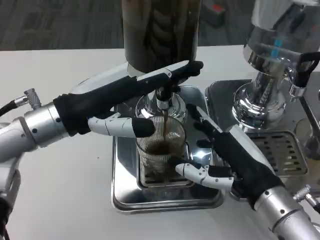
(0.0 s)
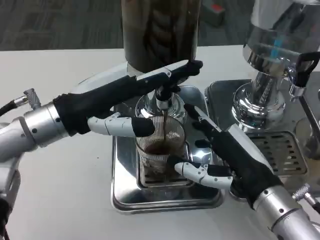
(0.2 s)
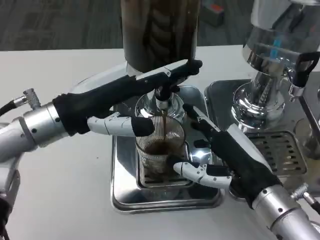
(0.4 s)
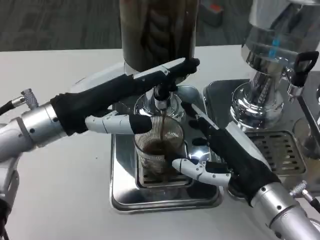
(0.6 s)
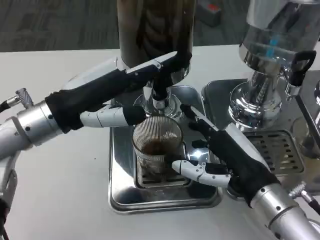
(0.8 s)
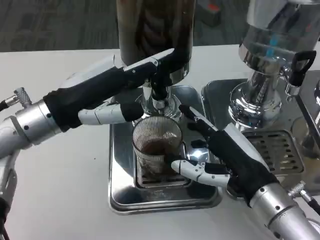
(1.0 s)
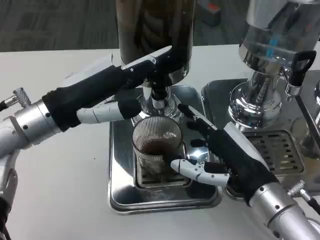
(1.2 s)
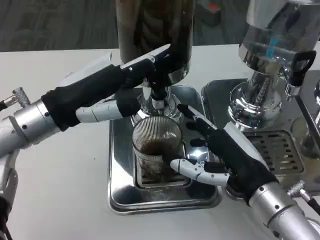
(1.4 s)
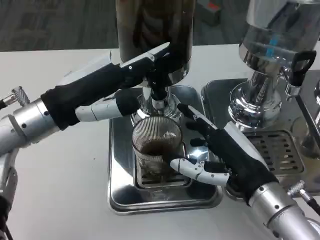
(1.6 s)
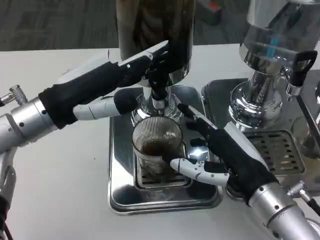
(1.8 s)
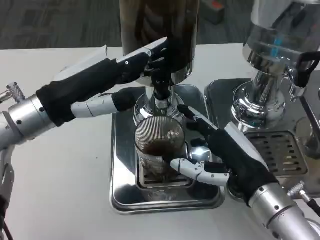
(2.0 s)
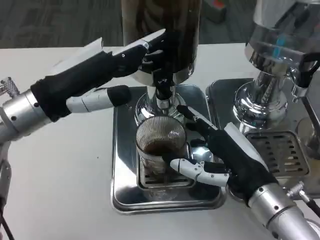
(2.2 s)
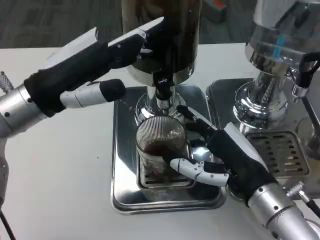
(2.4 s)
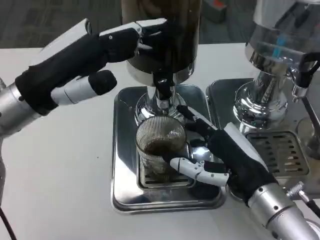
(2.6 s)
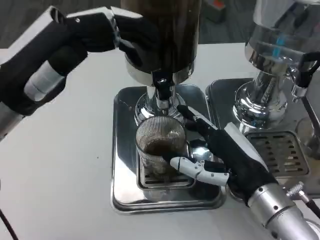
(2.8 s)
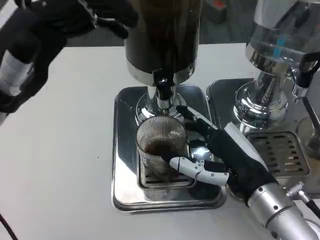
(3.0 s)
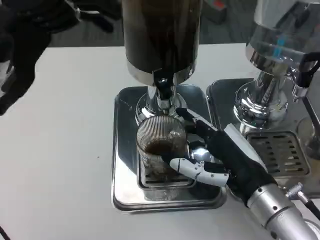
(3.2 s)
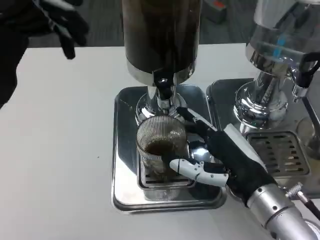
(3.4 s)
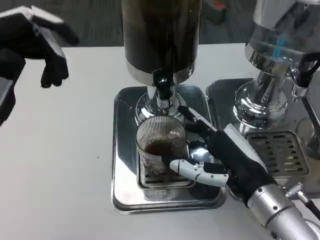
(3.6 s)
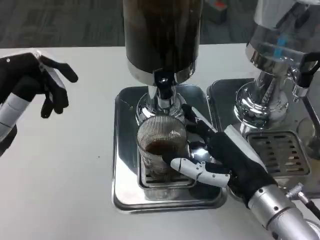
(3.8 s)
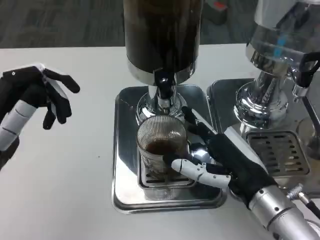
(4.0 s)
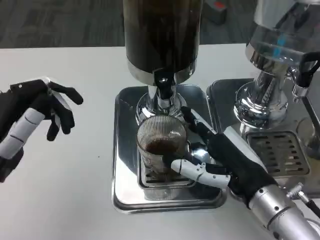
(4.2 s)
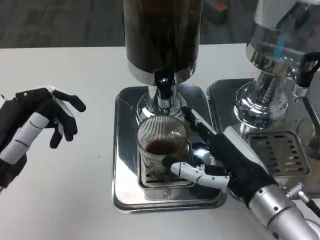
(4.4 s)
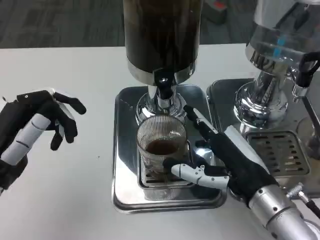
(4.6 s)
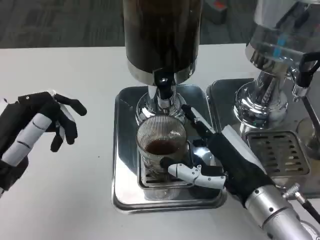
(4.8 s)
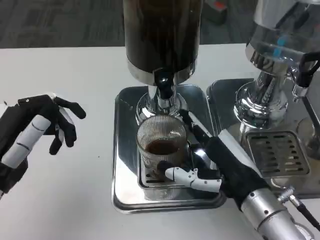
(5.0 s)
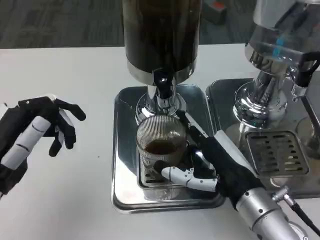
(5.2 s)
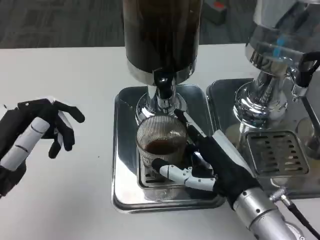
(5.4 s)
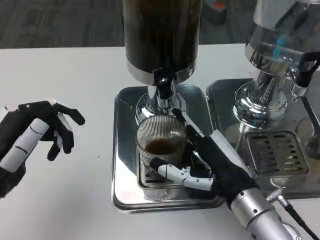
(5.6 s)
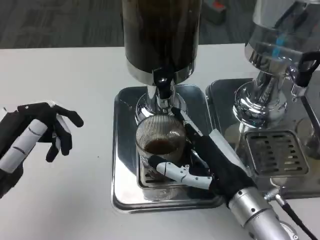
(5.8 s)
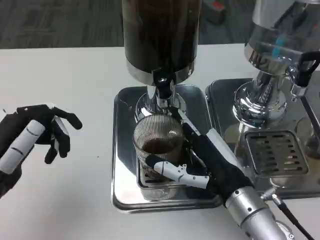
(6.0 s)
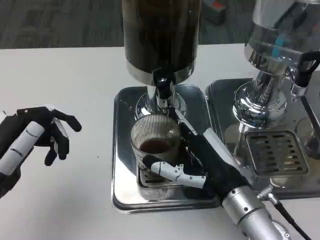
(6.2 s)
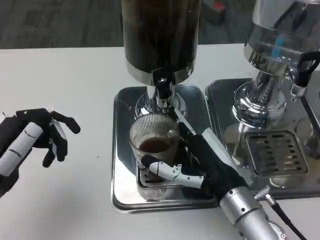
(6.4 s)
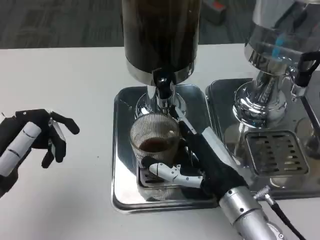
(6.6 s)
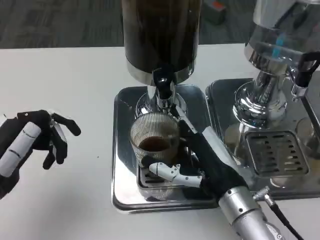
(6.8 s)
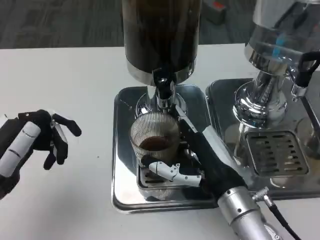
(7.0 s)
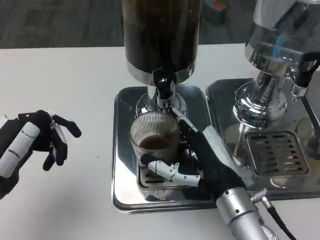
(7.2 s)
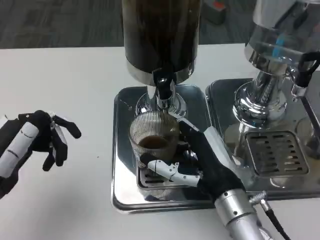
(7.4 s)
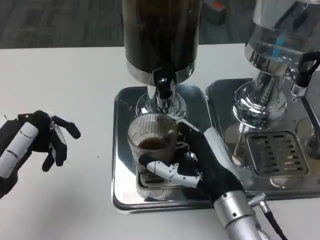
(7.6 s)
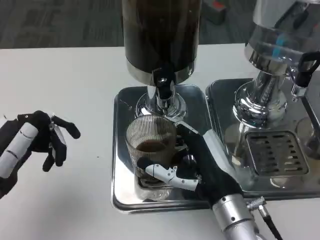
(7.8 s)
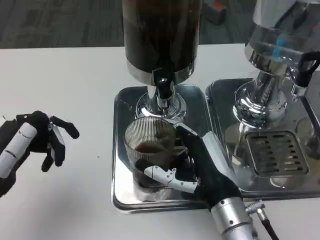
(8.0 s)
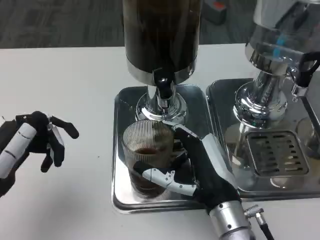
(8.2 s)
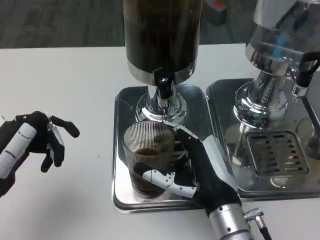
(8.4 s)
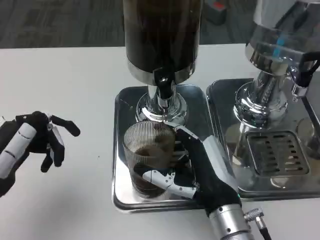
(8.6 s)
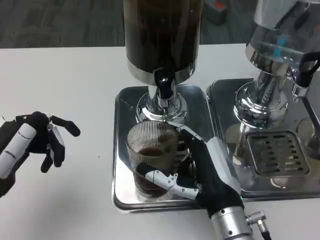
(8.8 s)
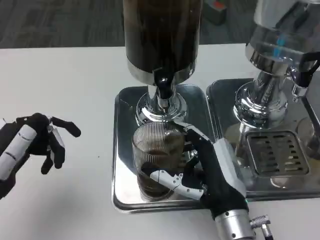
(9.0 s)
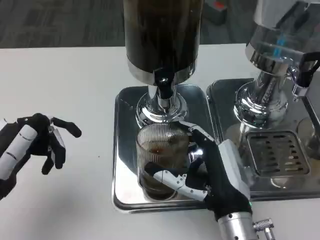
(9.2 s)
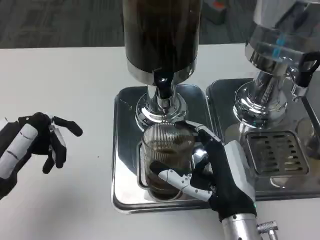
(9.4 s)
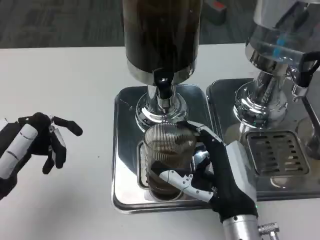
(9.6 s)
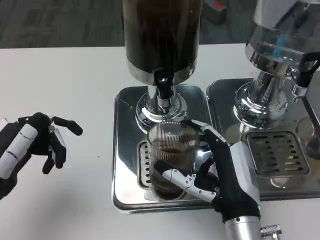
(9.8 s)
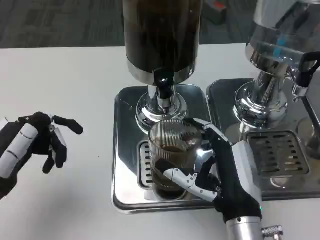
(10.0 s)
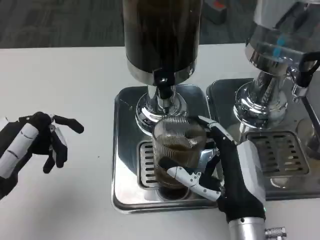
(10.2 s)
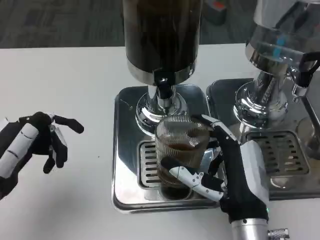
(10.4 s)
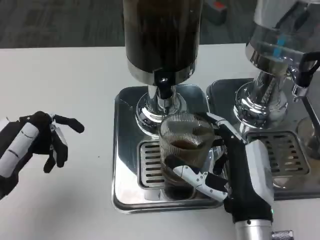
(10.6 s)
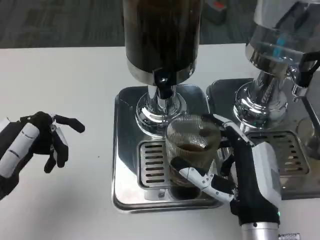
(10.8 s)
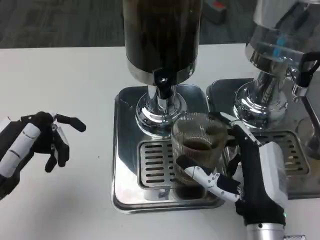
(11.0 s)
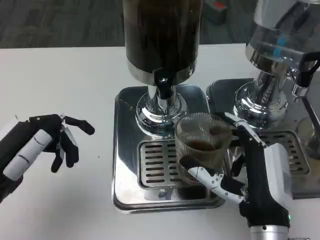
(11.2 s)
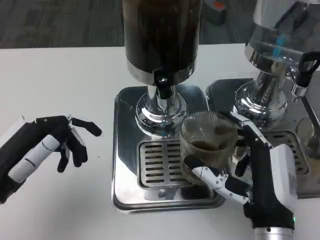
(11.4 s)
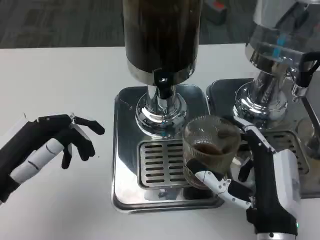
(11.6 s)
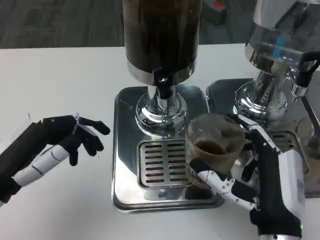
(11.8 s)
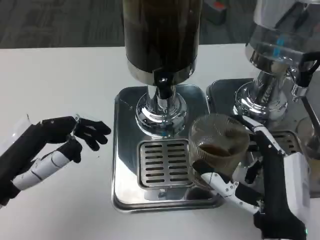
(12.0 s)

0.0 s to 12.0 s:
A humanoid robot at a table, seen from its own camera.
Task of the whole recording: Grasp the cup under the faucet to collect the drink, then remove the cup.
1.6 to 3.0 s: The left hand moves about 5 cm.
3.0 to 4.4 s: The left hand moves downward and backward, about 10 cm.
6.0 to 9.0 s: The hands make only small movements.
9.0 to 10.4 s: The hands stay close to where they were, moving slightly.

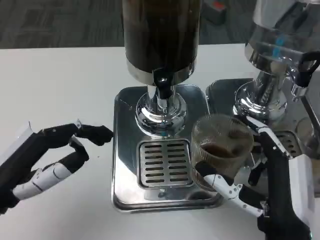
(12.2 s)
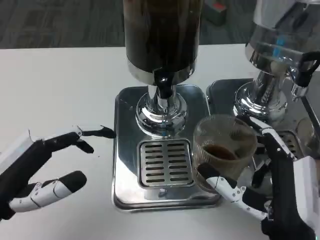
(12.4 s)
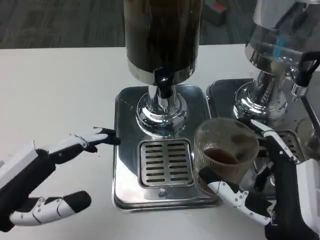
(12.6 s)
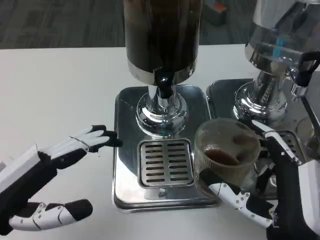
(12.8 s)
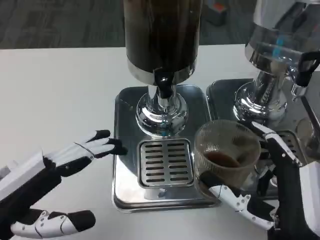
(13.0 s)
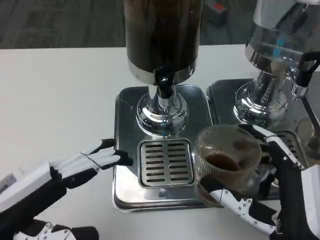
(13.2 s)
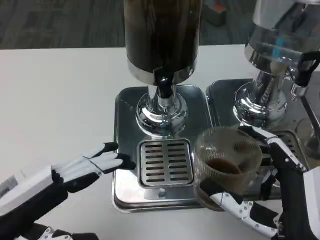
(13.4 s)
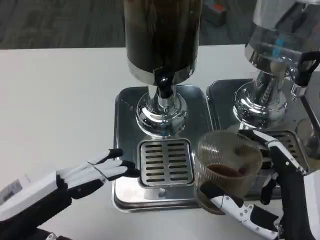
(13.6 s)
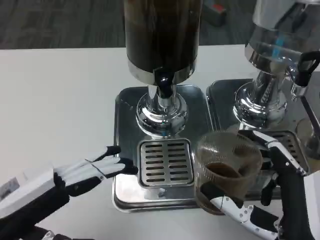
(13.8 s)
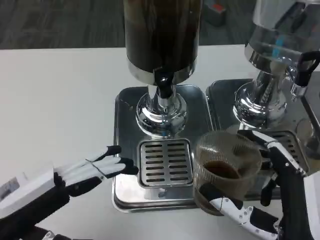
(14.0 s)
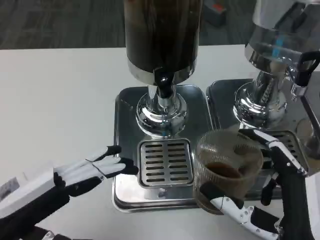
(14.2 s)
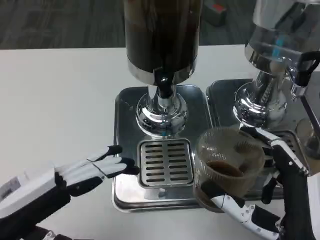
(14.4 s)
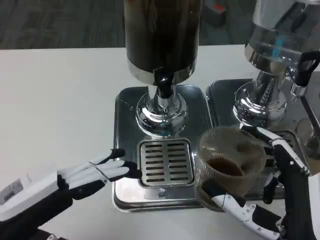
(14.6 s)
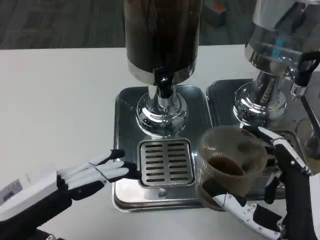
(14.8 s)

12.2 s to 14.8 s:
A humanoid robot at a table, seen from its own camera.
Task of the whole recording: Grasp the cup under the faucet to collect the drink, then remove the cup.
13.4 to 14.8 s: Both hands stay put.

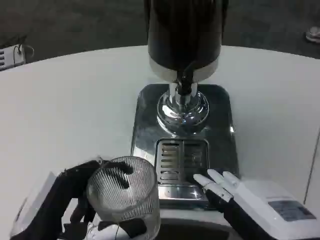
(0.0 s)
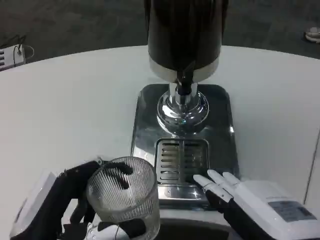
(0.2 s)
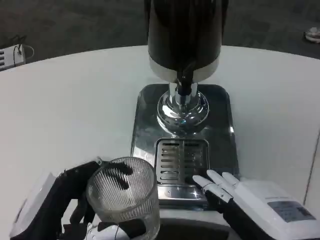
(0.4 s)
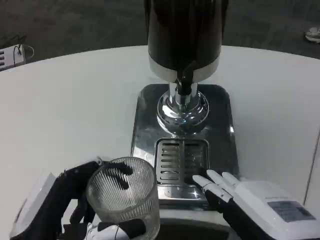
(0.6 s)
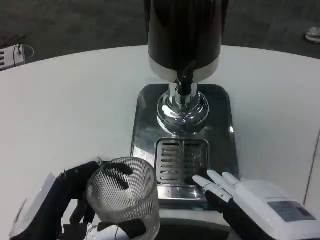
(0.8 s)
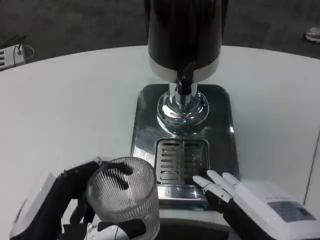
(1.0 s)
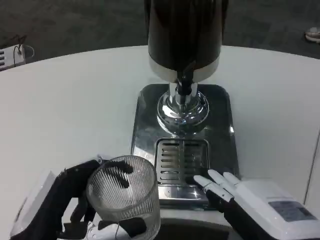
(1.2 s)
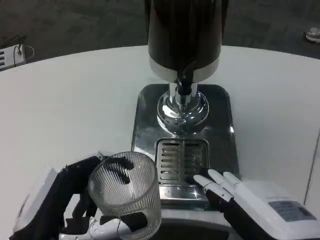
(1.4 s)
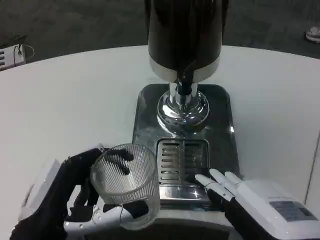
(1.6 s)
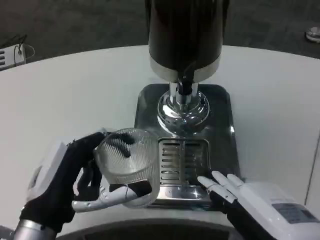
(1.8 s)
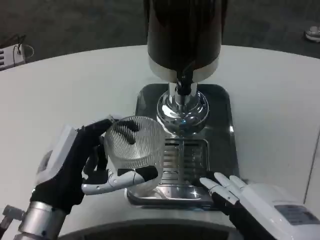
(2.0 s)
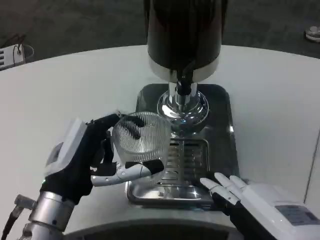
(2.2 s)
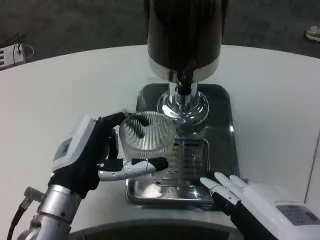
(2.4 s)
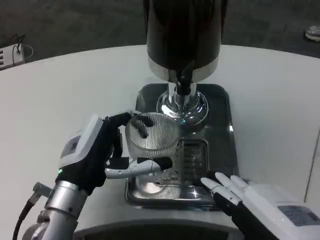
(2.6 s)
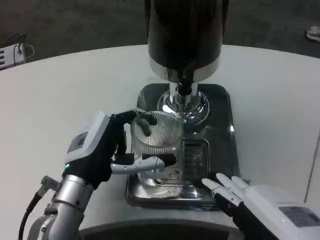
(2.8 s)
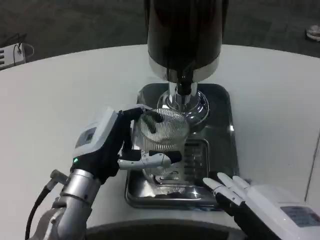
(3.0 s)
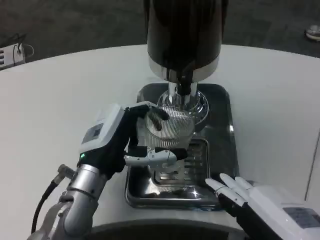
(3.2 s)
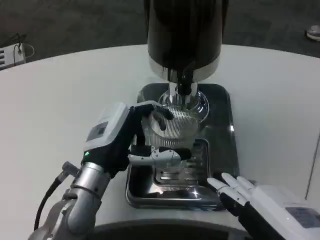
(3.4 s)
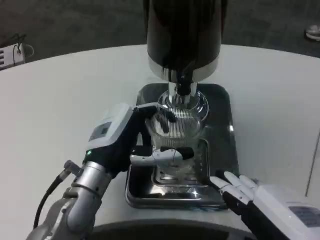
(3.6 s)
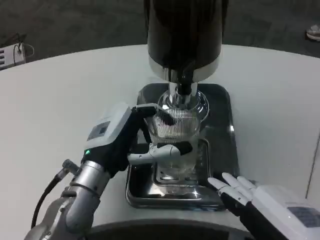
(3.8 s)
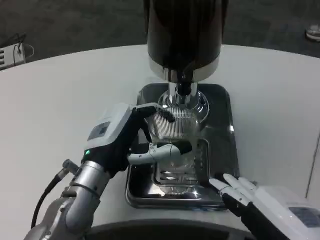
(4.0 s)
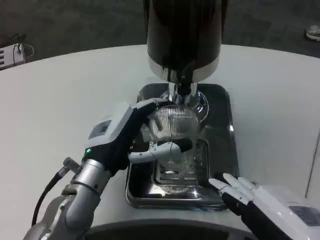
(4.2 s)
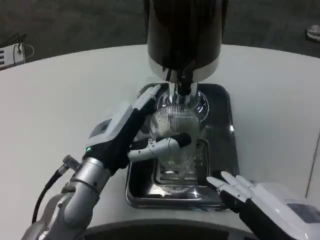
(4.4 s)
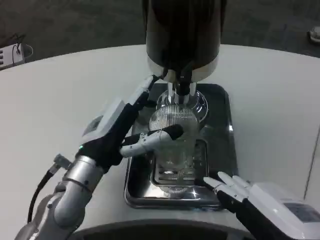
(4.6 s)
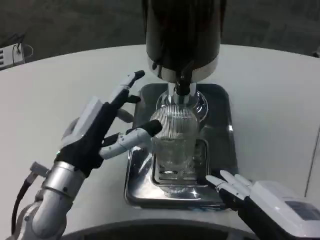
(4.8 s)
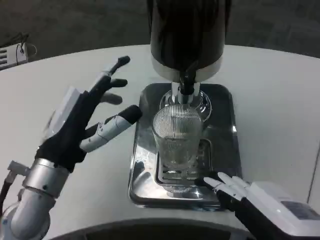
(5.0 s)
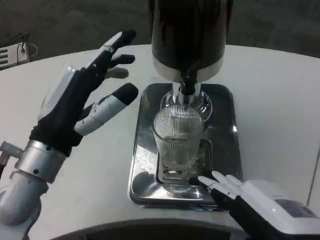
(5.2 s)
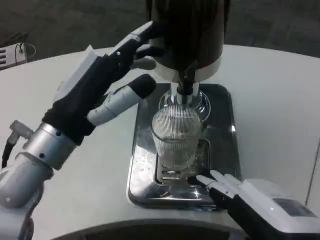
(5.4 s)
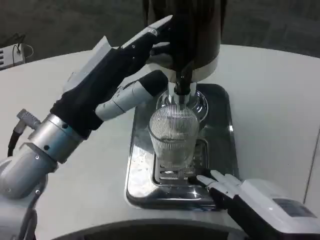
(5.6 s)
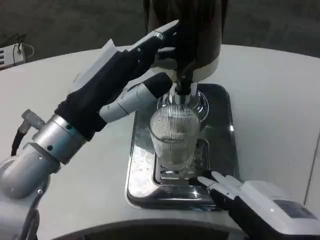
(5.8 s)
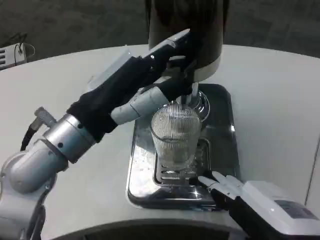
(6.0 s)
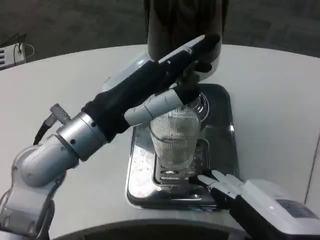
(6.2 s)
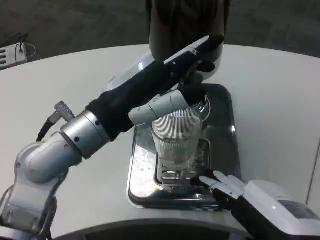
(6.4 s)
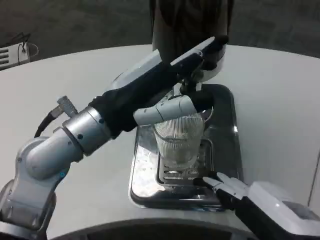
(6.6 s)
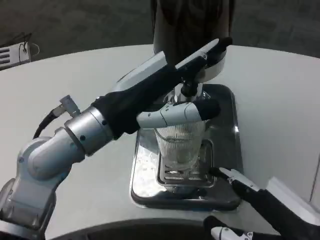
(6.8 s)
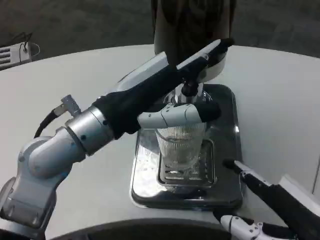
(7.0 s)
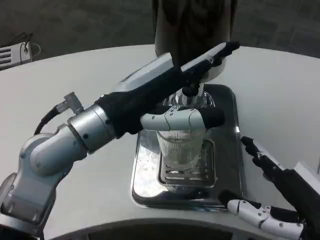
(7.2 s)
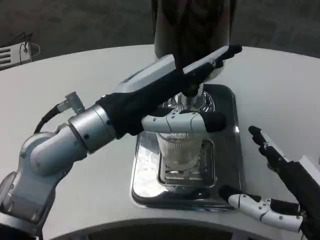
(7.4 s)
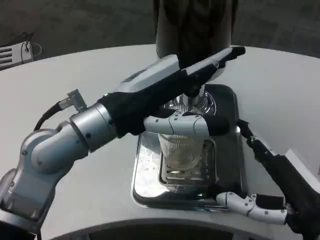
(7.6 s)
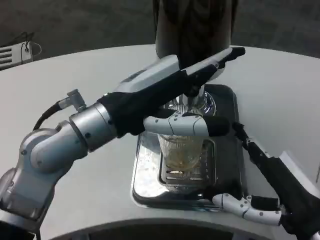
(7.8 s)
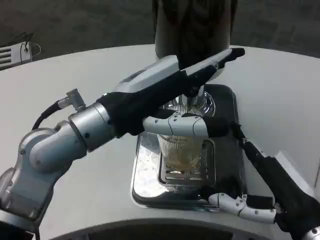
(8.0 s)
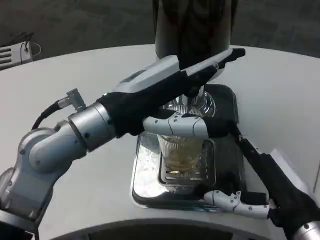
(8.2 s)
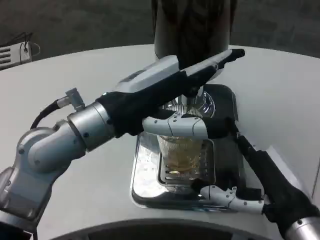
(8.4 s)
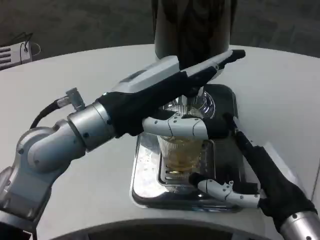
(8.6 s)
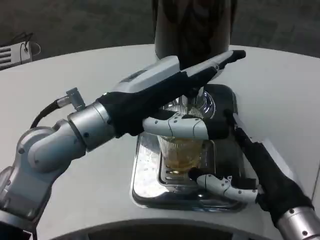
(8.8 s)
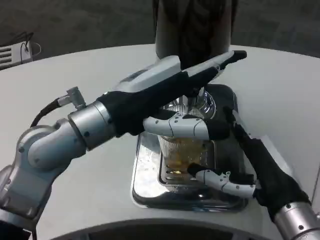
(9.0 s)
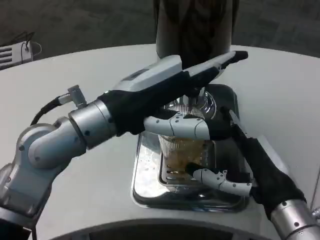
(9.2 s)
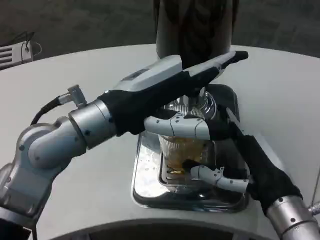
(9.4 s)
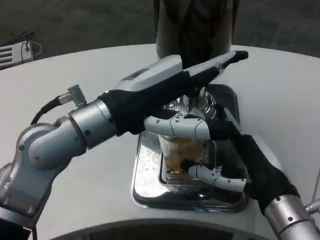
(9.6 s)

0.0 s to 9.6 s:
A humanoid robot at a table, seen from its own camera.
Task of the whole recording: Grasp the cup under the faucet to collect the drink, then remove the cup.
0.0 to 1.6 s: The hands move only a little.
1.6 to 3.2 s: The left hand shifts some 15 cm forward and to the right.
4.8 to 6.4 s: The left hand shifts approximately 10 cm upward.
6.4 to 8.0 s: The right hand moves forward, approximately 5 cm.
8.0 to 9.6 s: The right hand is displaced forward by some 5 cm.
